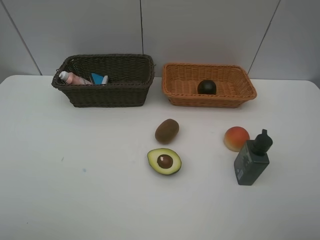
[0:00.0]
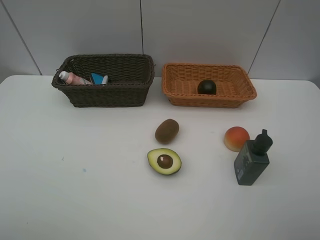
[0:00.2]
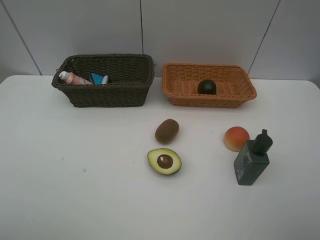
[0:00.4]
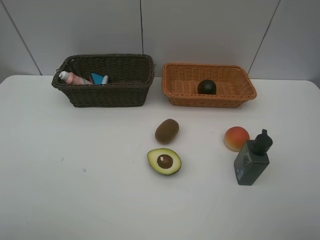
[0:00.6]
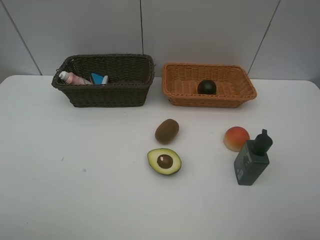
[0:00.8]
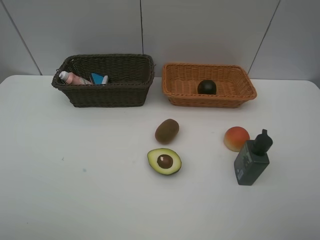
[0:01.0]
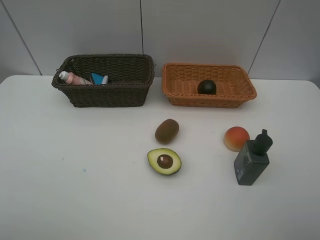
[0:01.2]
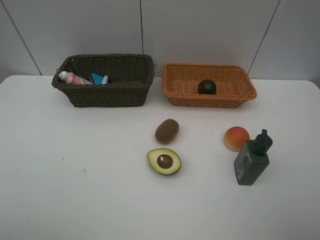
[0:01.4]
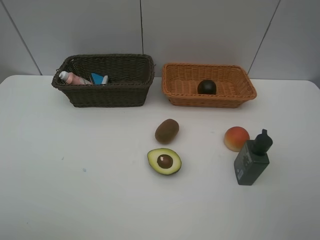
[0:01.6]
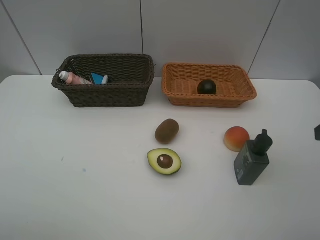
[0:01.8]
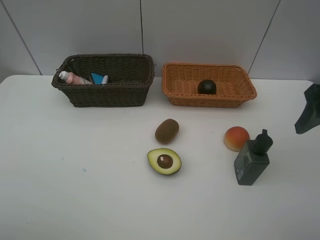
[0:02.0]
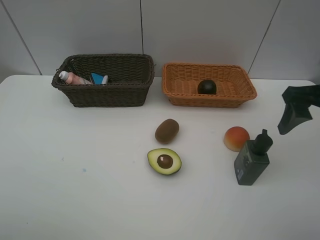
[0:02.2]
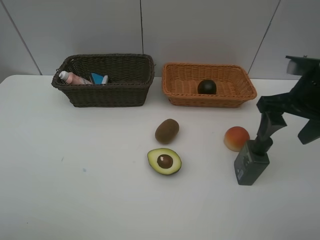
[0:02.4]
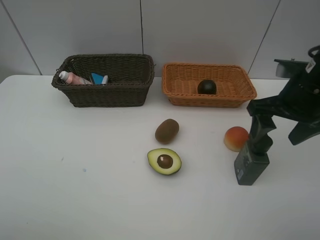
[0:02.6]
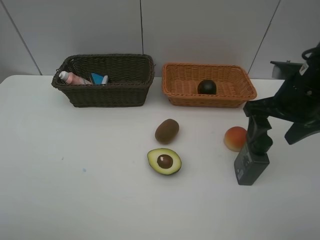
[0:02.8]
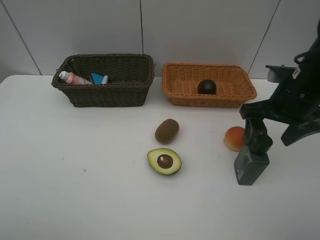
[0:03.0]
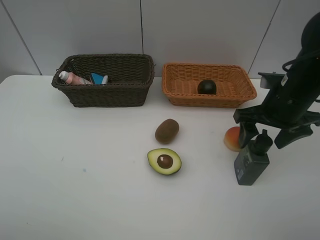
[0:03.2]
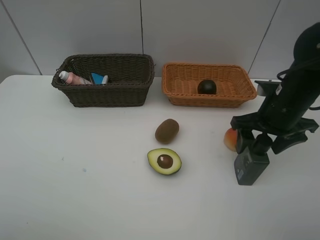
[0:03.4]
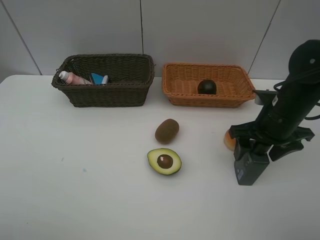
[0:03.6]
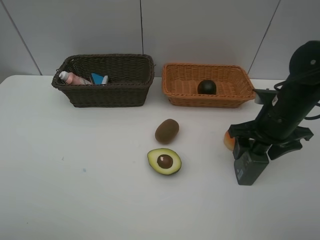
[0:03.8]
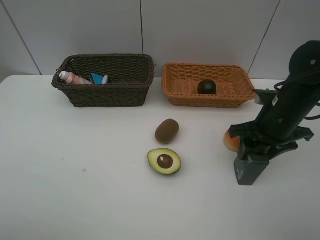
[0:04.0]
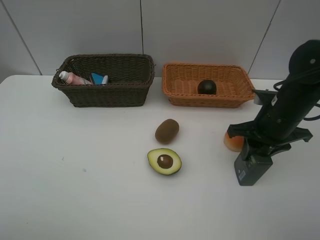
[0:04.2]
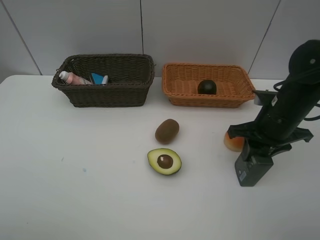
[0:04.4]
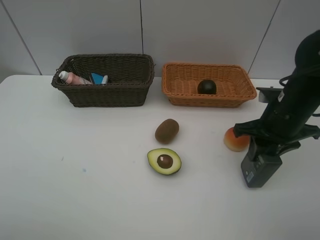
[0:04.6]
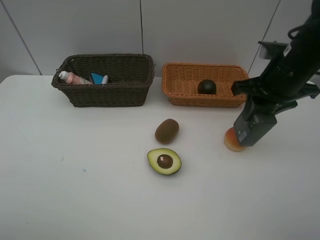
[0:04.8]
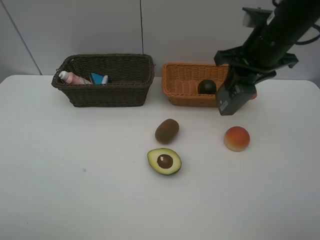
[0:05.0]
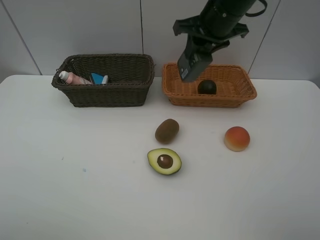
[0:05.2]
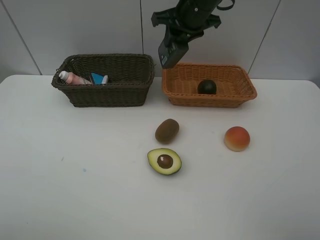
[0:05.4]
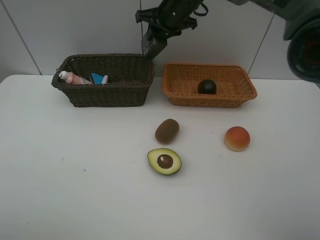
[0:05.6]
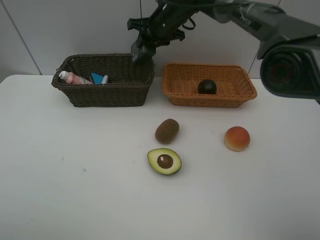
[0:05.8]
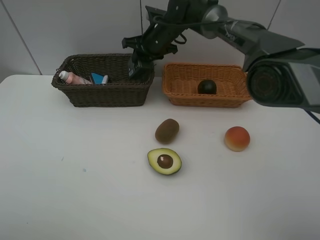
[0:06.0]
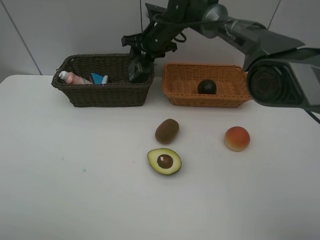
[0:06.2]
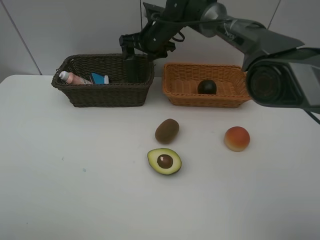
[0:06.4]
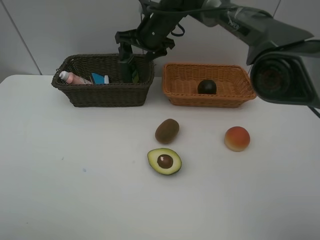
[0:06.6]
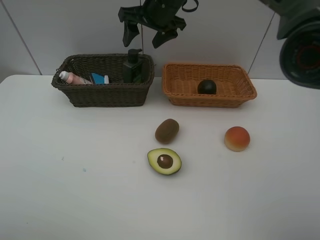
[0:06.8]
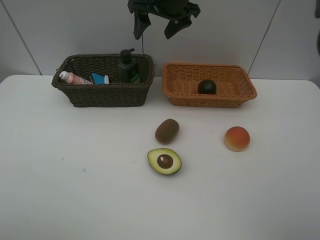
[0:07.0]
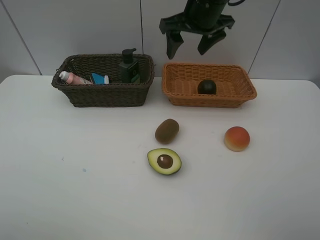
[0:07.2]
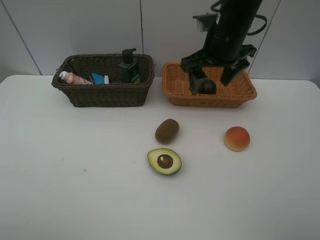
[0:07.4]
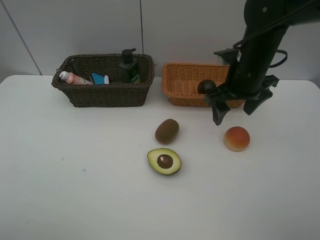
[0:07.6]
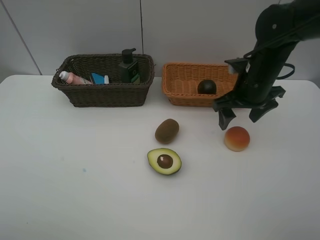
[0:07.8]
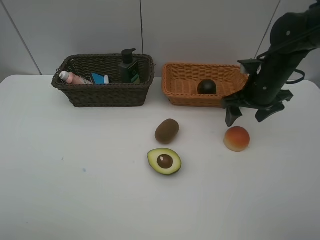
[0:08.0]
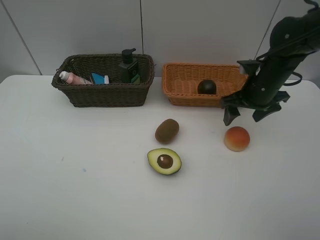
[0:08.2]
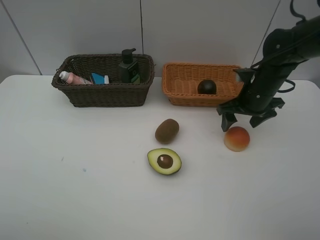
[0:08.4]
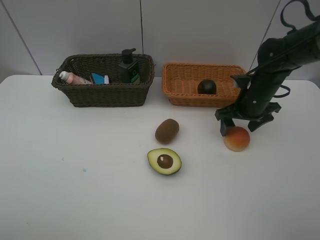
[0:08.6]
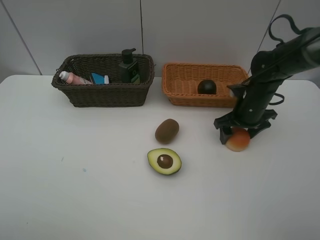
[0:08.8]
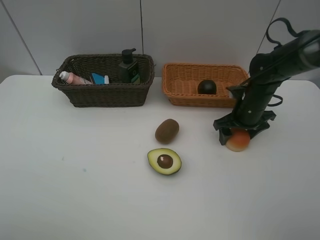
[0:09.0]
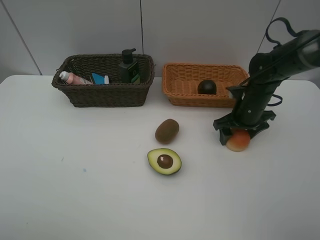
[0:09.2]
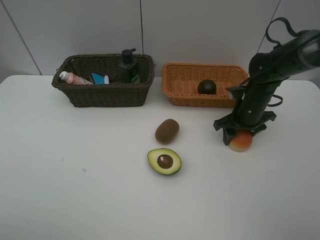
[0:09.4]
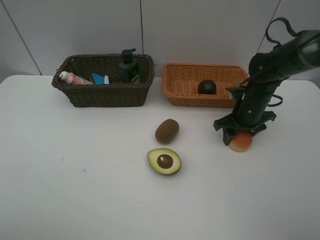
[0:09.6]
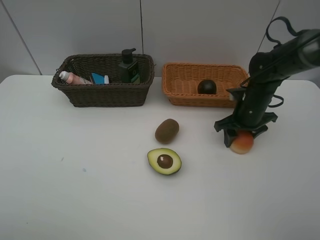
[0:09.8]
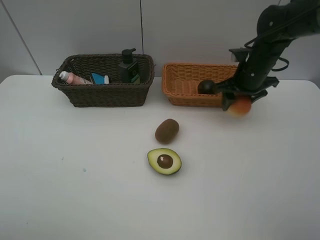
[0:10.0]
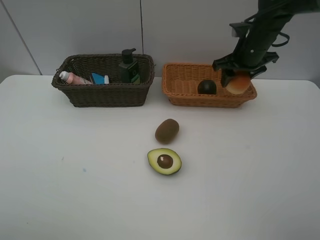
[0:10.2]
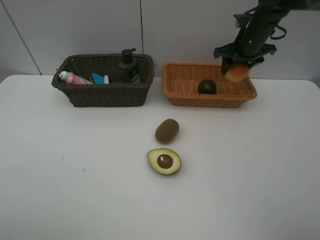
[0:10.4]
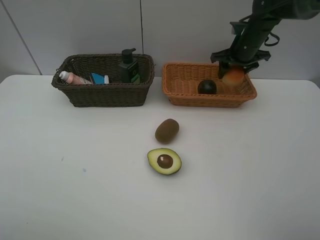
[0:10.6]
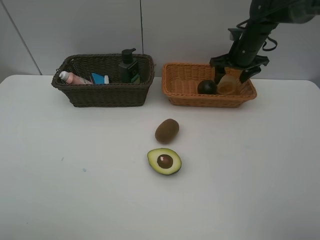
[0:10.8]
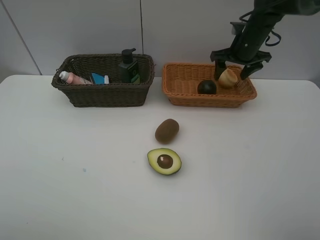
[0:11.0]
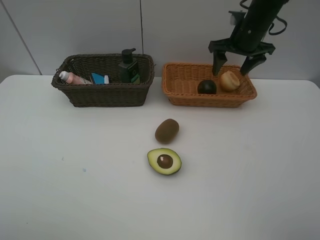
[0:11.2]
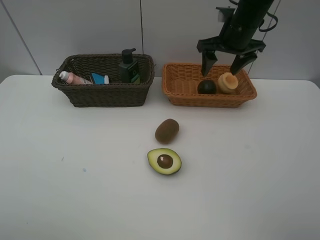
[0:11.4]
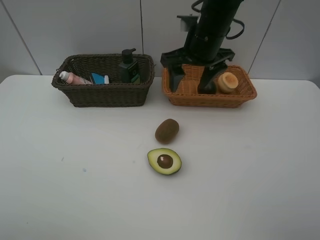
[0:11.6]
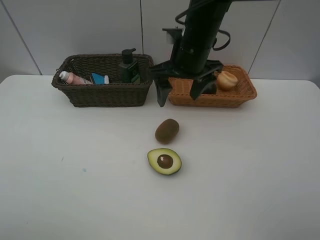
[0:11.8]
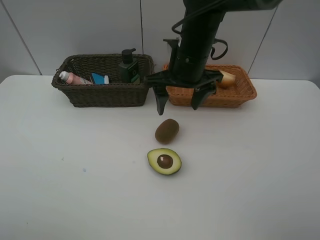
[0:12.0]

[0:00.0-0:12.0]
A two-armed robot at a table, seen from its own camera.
Task of the whole recording: Place multiple objects separately in different baskets.
Step, 0:00.0 to 0:04.6: Pick up the hard facial cleanser with right gripper.
Step, 0:04.8 to 0:06.2: Place the hard facial cleanser in the dark basket with right gripper.
Step, 0:06.4 to 0:09.8: Pick up egg yolk pastry with right gripper.
Step, 0:10.0 to 0:10.8: Place the egg yolk pastry in the light basket with right gripper.
0:01.6 to 0:03.0: The right gripper travels forward, to the left and downward by about 20 cm.
0:03.0 to 0:04.4: The right gripper shifts some 5 cm downward, and closes up.
0:04.4 to 0:06.0: The right gripper goes roughly 35 cm forward and to the left.
0:06.0 to 0:07.6: The right gripper heads backward and to the right, covering approximately 25 cm, and opens.
0:07.6 to 0:09.0: The right gripper shifts some 15 cm downward and to the right.
0:09.0 to 0:10.4: The right gripper travels upward and forward by some 15 cm, and closes.
0:10.4 to 0:12.0: The right gripper goes about 20 cm to the left and backward, and opens its fingers.

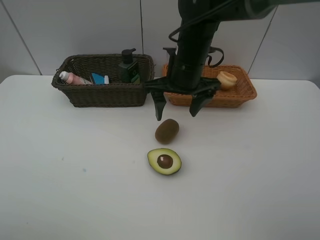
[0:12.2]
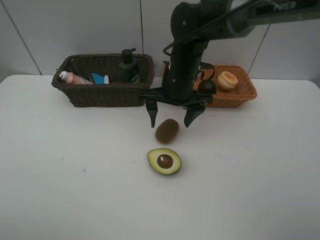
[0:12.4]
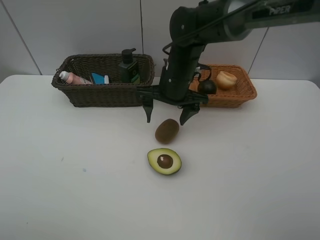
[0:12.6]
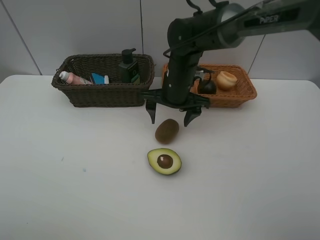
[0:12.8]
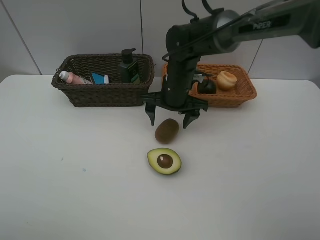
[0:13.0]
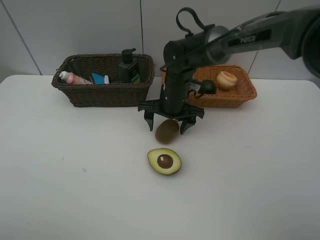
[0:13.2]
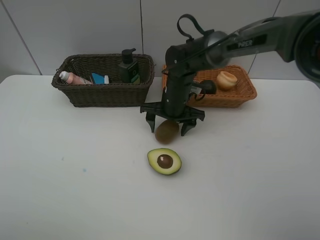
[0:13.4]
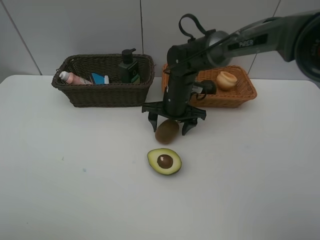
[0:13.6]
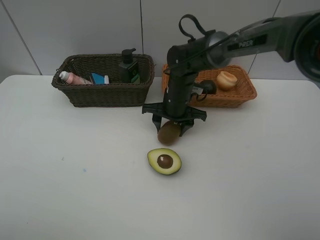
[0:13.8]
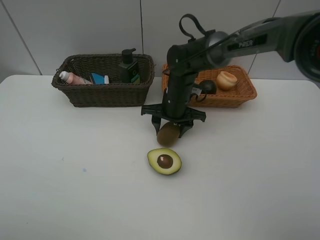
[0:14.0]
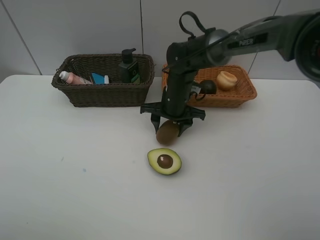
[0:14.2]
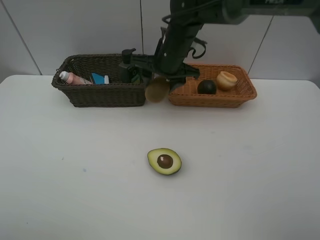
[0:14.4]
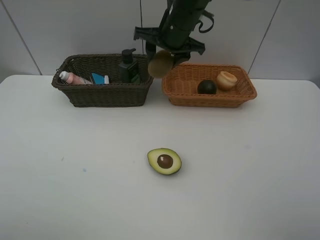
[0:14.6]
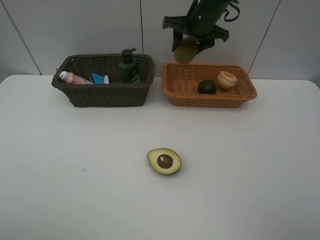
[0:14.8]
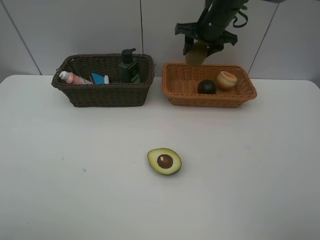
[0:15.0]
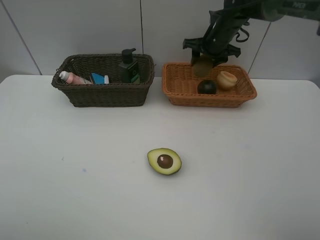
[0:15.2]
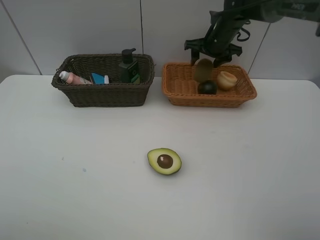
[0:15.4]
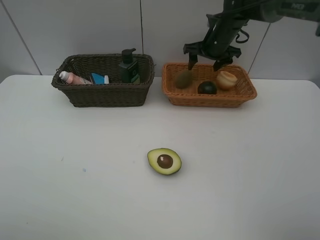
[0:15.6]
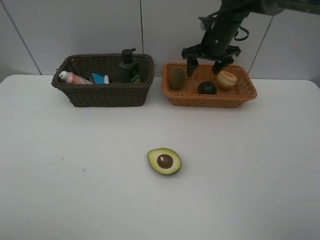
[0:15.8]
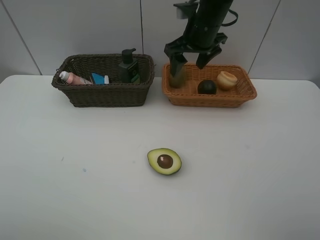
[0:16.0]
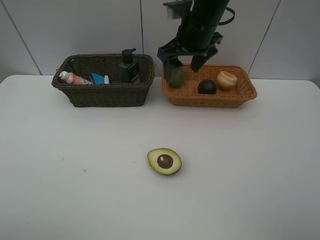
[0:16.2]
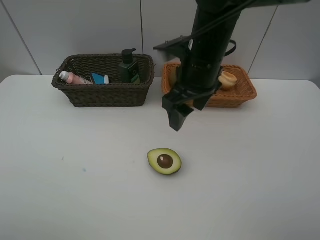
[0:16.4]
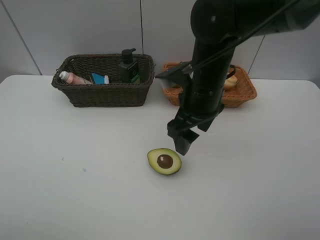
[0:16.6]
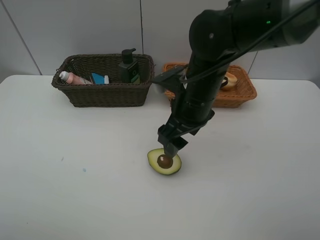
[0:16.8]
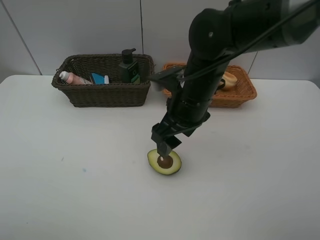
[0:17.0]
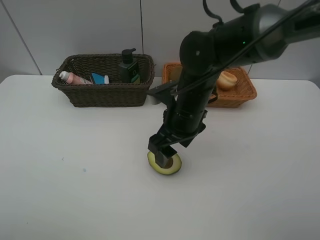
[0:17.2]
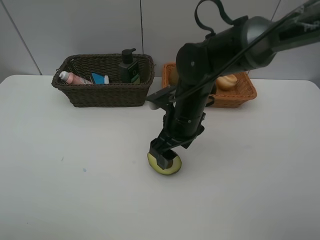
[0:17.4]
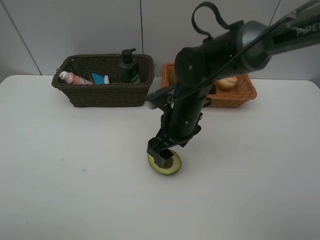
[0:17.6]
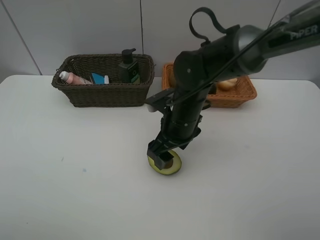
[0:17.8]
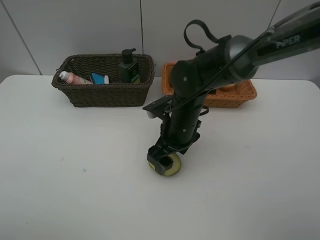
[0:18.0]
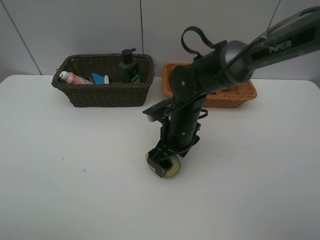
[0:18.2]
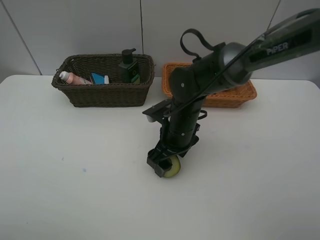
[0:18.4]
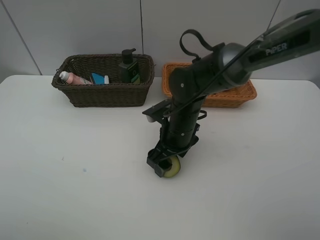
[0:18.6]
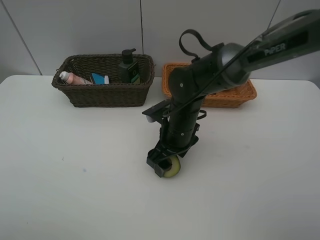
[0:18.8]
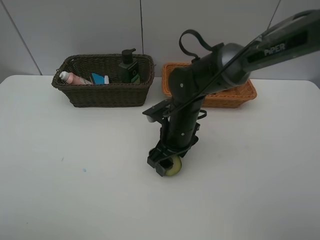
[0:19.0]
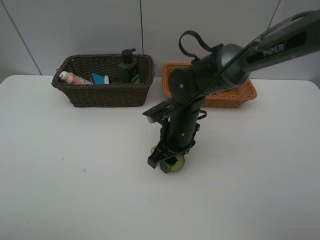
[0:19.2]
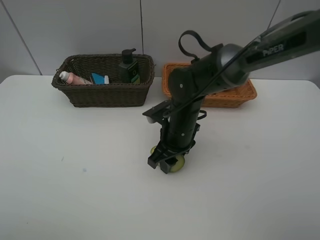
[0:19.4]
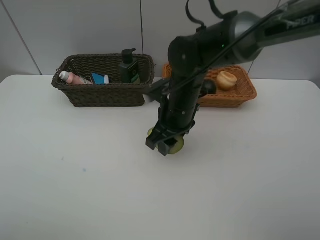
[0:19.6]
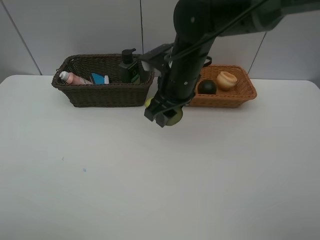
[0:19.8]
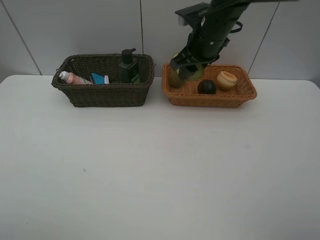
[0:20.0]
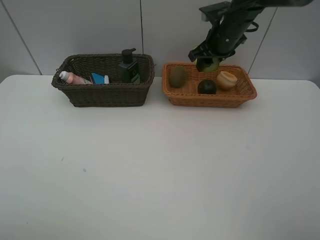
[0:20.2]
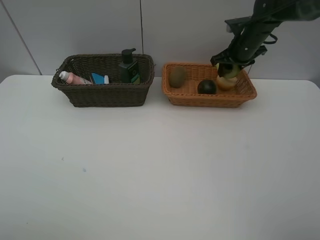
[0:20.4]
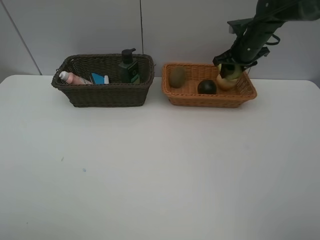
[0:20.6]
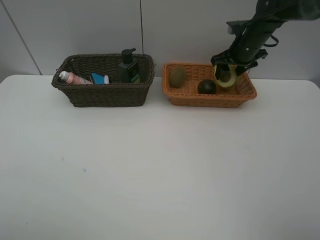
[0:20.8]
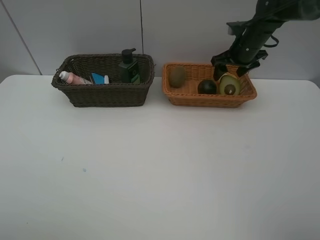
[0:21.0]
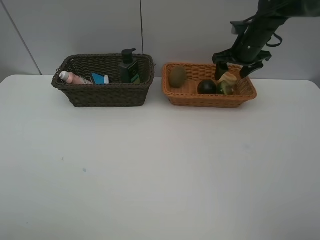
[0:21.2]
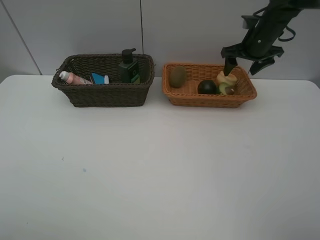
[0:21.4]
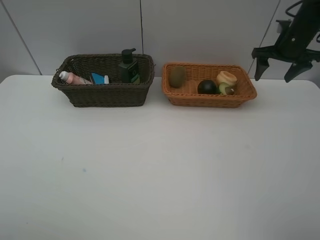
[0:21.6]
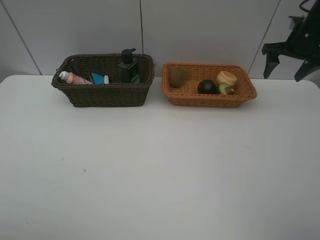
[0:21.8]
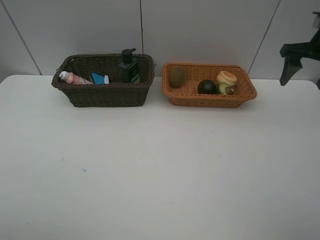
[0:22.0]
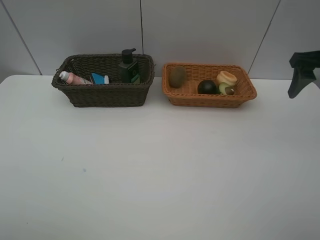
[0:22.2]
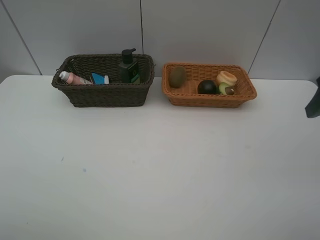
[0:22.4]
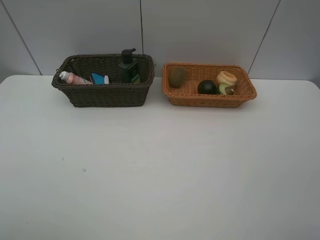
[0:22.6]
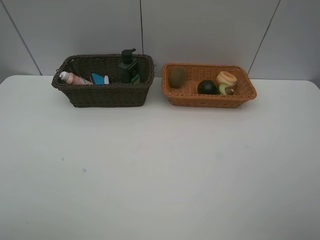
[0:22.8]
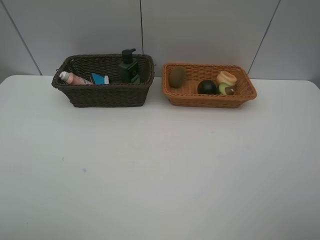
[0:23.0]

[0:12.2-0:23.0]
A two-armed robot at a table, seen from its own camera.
Task of the whole recording: Place multiple objects separately in different baskets.
Step, 0:12.2 to 0:14.2: Pick up kiwi with right gripper.
Step, 0:14.4 to 0:15.6: Place the kiwi in the light basket with right gripper.
Step, 0:15.8 to 0:19.6: Pick up the avocado with right gripper.
Step, 0:19.8 to 0:21.0: Place the avocado in the light basket with right gripper.
0:12.2 to 0:13.8: The right gripper heads downward, covering some 10 cm, and closes up.
0:13.8 to 0:15.2: The right gripper goes roughly 20 cm forward, to the right and upward.
0:15.2 to 0:16.8: The right gripper moves backward, about 25 cm, and opens.
0:16.8 to 0:18.4: The right gripper travels downward by roughly 10 cm.
0:18.4 to 0:20.0: The right gripper travels upward, forward and to the right by about 20 cm, and closes.
0:20.0 to 0:21.4: The right gripper shifts some 15 cm to the right, and opens its fingers.
0:21.4 to 0:23.0: The right gripper is displaced backward by approximately 50 cm.
